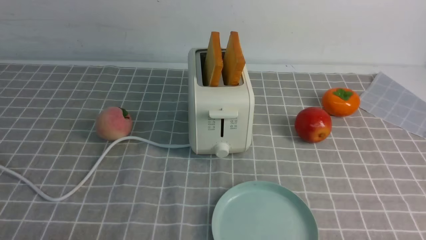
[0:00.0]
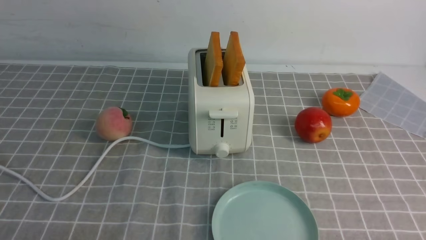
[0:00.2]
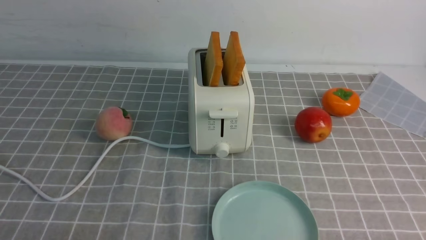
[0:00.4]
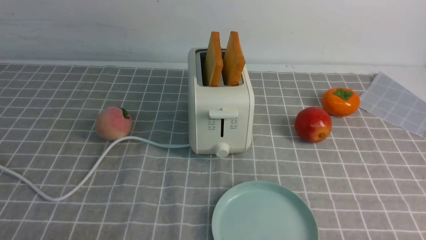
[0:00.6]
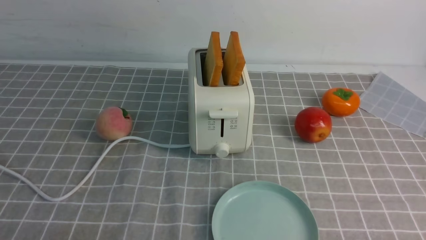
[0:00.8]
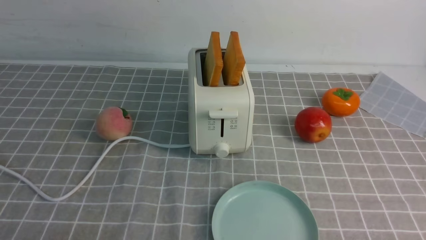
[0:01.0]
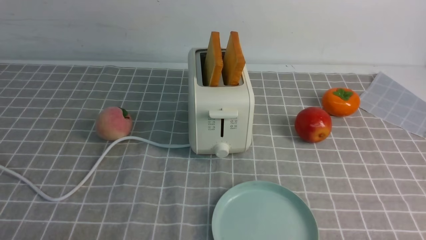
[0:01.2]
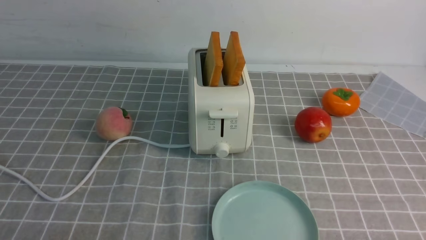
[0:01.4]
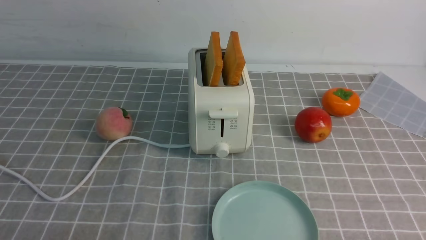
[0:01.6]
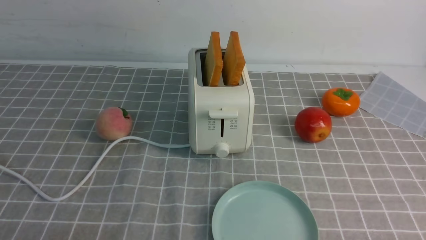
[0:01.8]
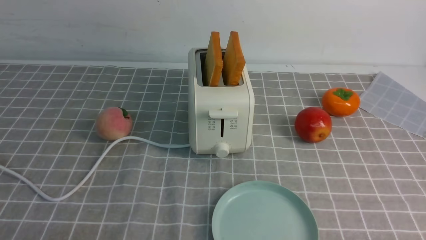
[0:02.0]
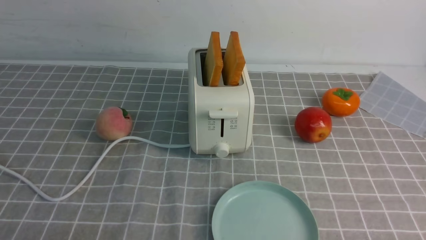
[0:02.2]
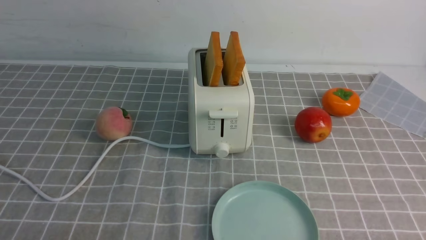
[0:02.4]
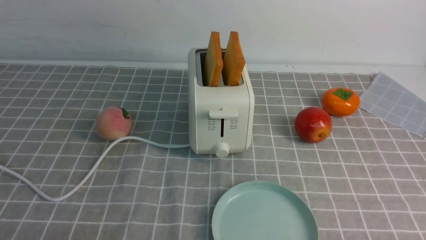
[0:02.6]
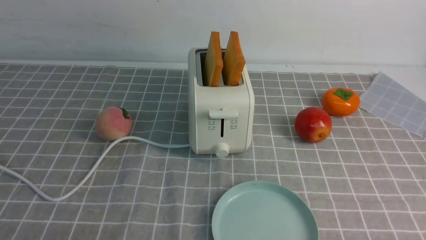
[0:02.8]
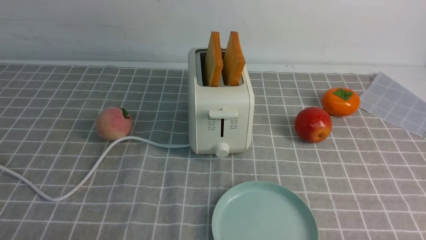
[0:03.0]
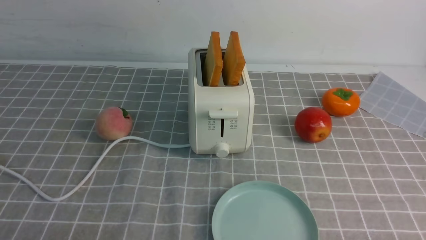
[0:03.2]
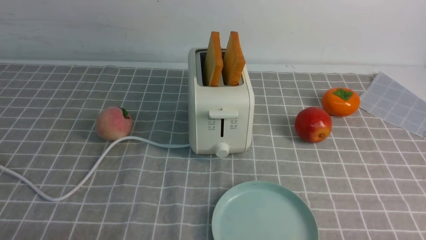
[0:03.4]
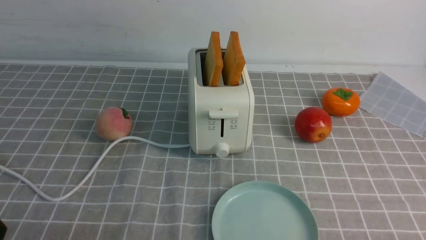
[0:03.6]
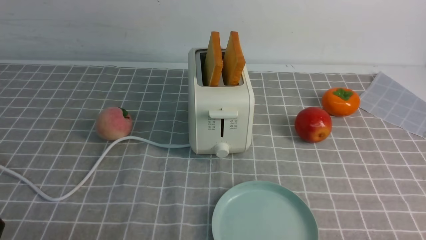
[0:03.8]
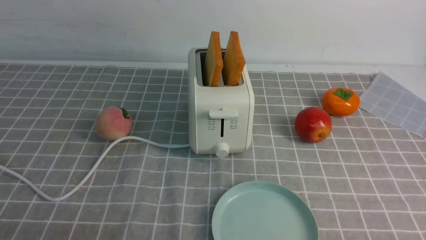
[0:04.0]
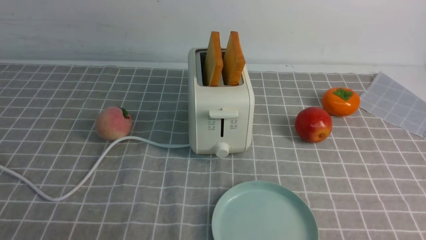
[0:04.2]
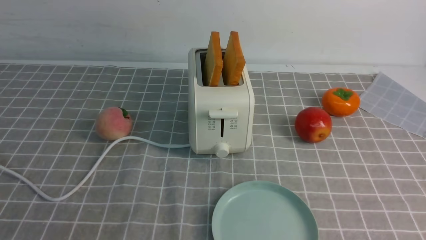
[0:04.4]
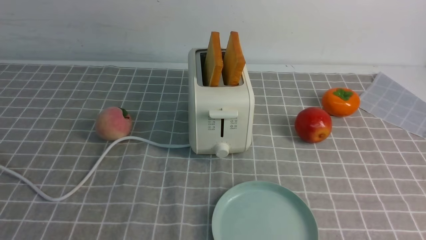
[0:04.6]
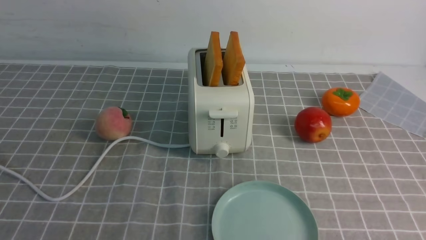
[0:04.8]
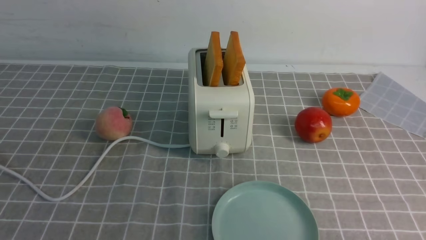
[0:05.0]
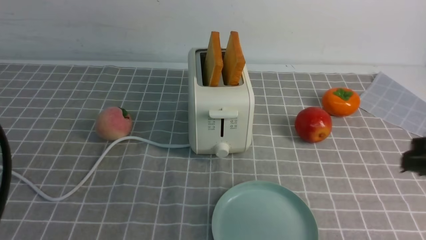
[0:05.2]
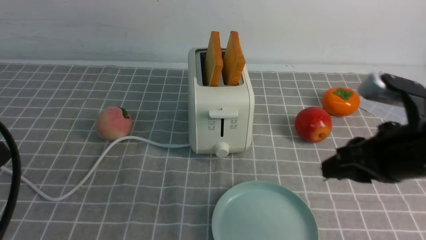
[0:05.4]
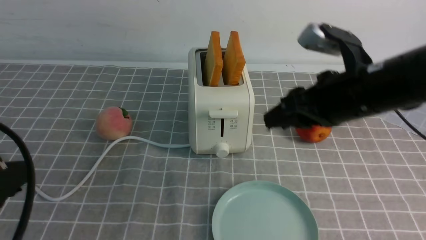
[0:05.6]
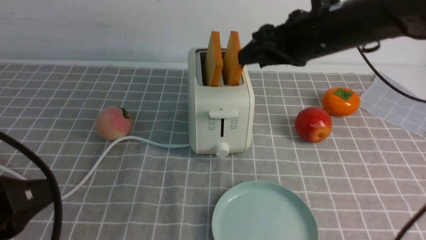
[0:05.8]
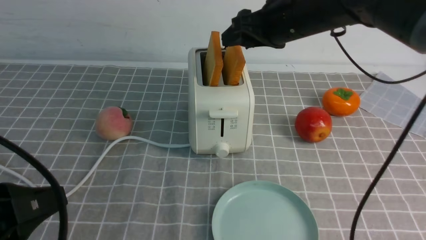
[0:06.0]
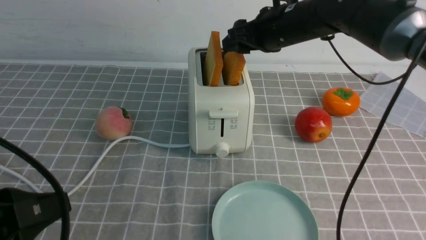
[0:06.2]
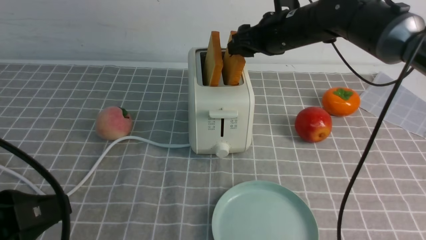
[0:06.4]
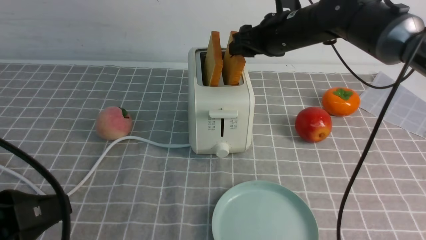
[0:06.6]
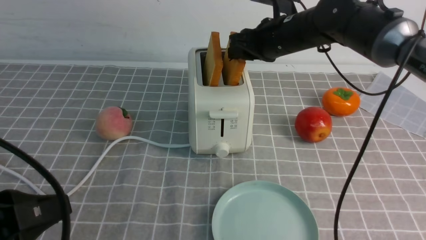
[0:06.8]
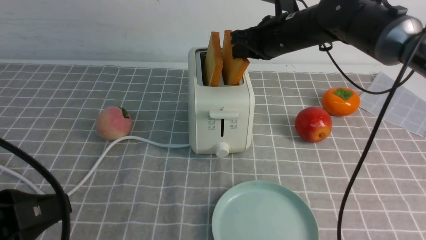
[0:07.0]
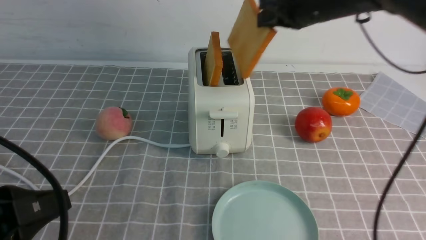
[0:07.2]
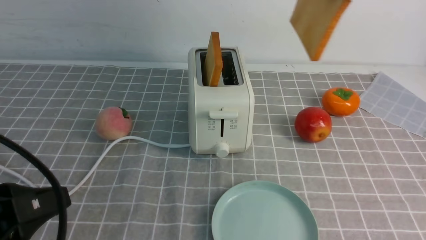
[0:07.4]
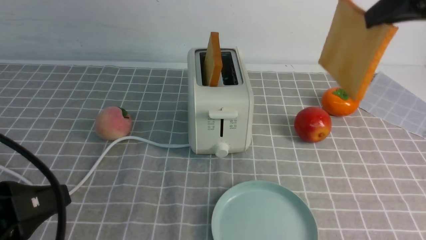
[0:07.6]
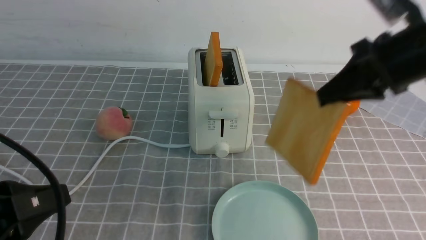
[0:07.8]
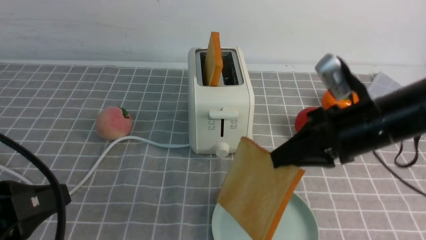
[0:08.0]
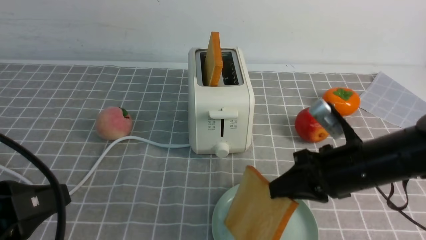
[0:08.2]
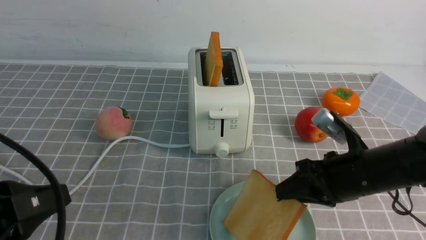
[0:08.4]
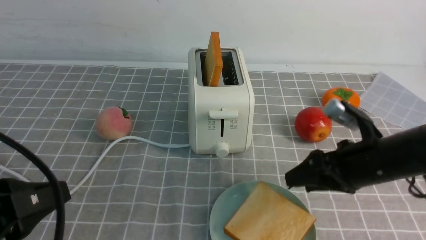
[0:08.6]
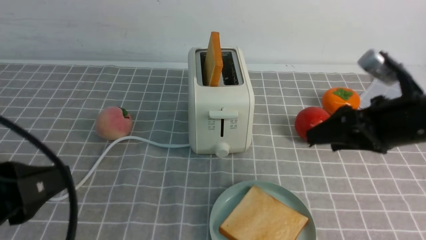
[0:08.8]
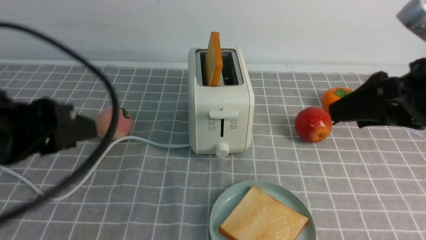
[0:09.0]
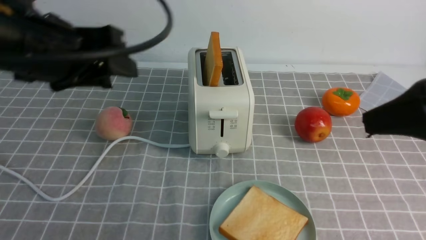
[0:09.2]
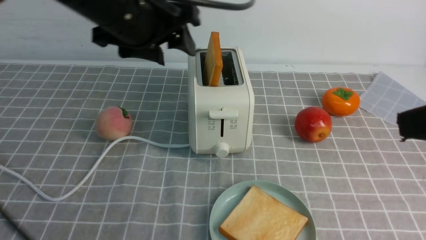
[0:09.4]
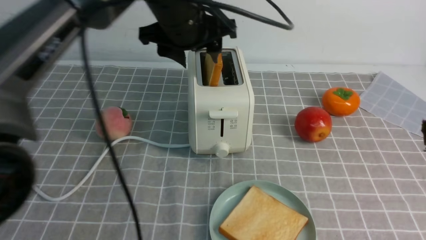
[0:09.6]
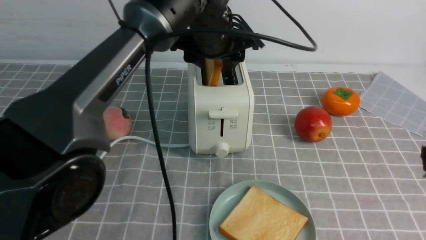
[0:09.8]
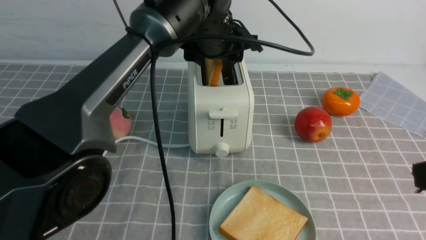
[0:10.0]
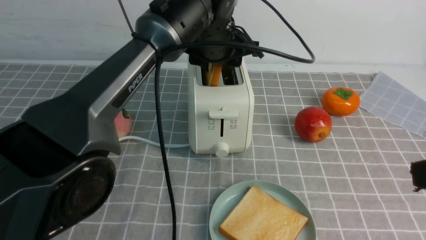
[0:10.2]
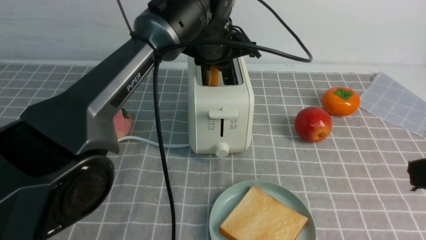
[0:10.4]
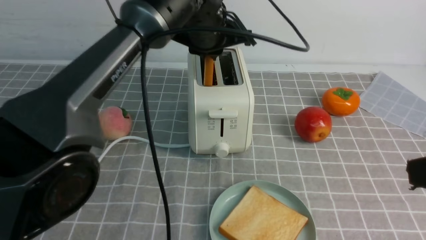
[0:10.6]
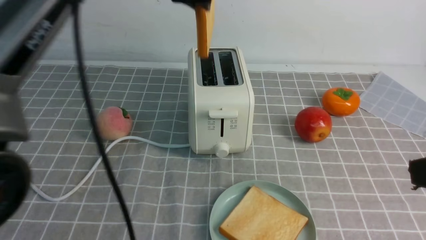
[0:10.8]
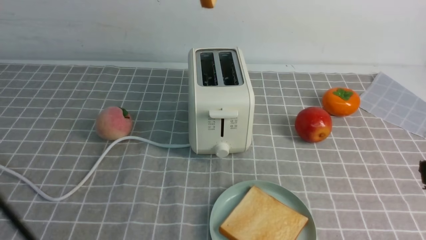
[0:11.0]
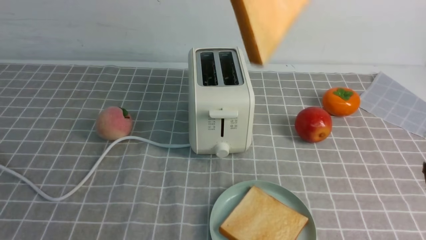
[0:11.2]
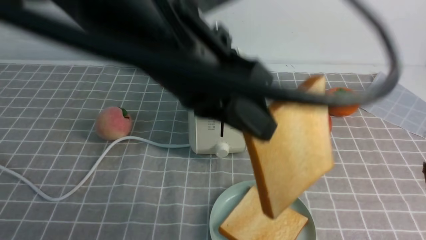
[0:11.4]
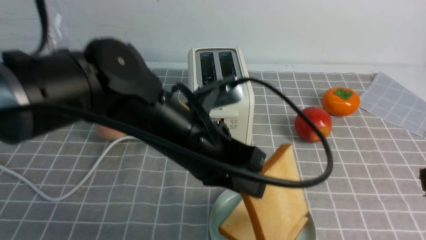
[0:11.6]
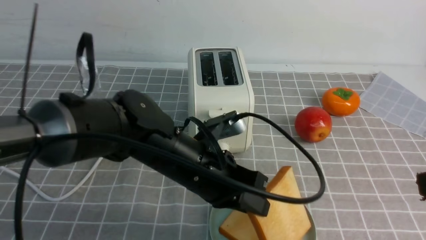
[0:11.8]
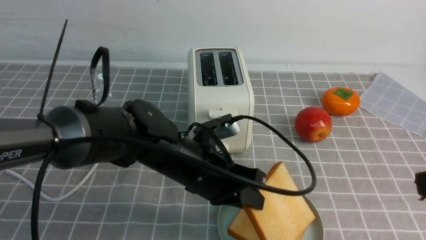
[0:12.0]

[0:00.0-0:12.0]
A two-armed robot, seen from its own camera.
Task of the whole recording: take toasted bread from bread machine on grey coffee table place on plate.
Step, 0:00.0 to 0:07.0: use the right arm to take out a slice of bread.
Step, 0:07.2 to 0:08.8: use the right arm to put a slice of bread into the plate.
Step, 0:09.0 to 0:10.6: use the left arm to take out a slice of bread.
0:00.0 to 0:03.0: Neither gripper changes place.
0:04.4 to 0:06.0: The left gripper shifts about 5 cm forward, and reaches roughly 5 cm upward, then returns; the right gripper is displaced forward and to the left by roughly 40 cm, and opens up.
0:06.0 to 0:07.6: The right gripper moves to the right, backward and upward, approximately 15 cm, and closes up.
0:07.6 to 0:09.0: The right gripper is displaced backward by about 10 cm, goes downward and returns, about 20 cm each way, and opens up, while the left gripper goes some 10 cm forward and upward.
0:09.0 to 0:10.4: The right gripper is displaced backward by about 10 cm. Meanwhile the left gripper shifts roughly 30 cm forward and to the right.
0:10.4 to 0:12.0: The left gripper heads backward and downward, covering about 20 cm.

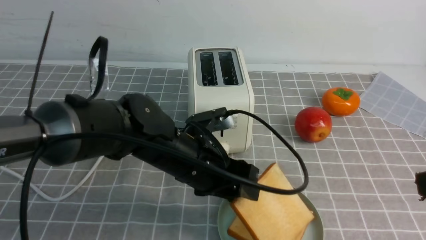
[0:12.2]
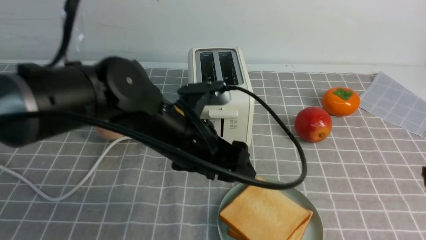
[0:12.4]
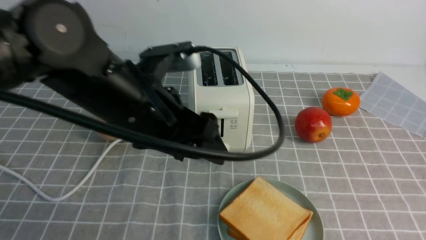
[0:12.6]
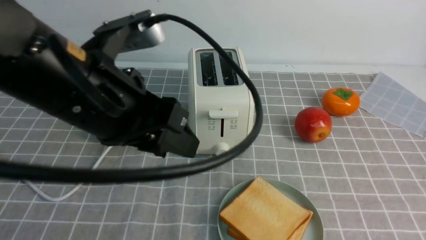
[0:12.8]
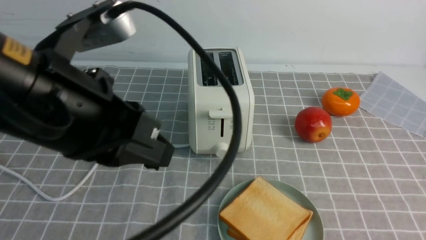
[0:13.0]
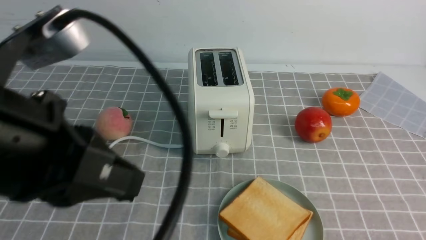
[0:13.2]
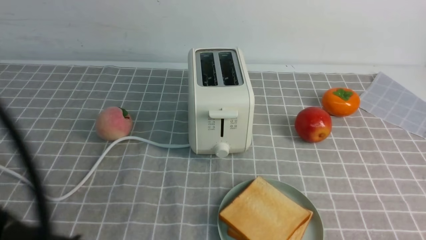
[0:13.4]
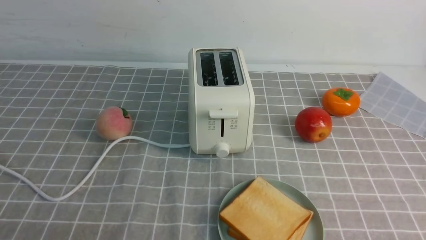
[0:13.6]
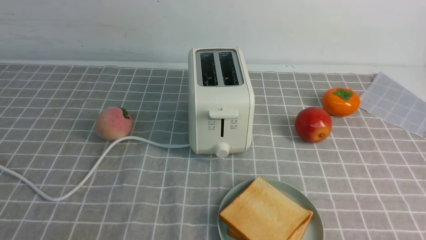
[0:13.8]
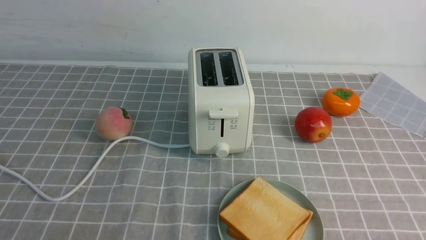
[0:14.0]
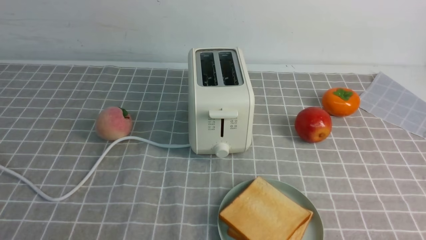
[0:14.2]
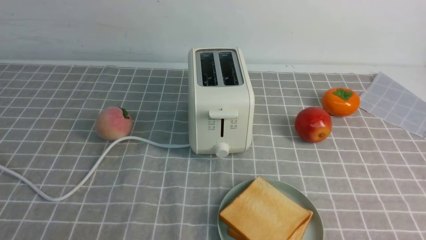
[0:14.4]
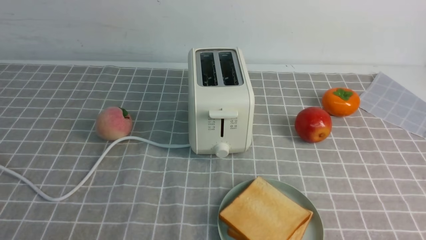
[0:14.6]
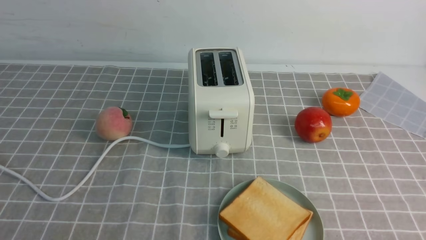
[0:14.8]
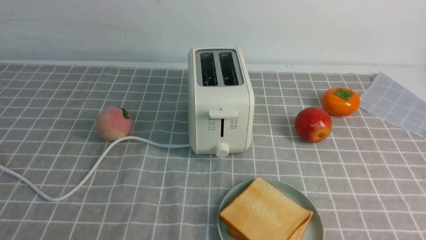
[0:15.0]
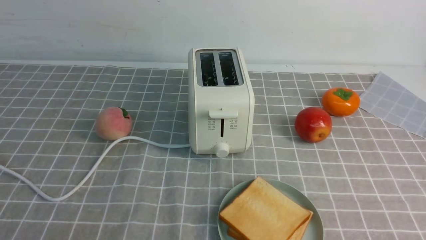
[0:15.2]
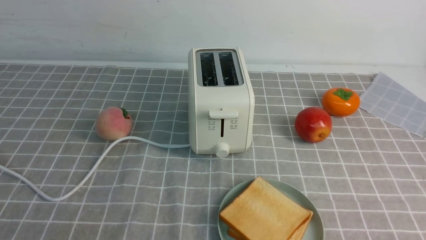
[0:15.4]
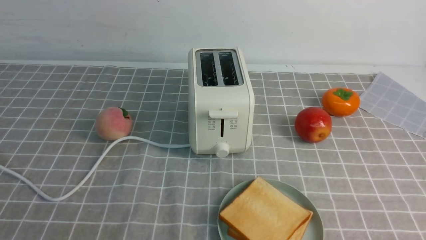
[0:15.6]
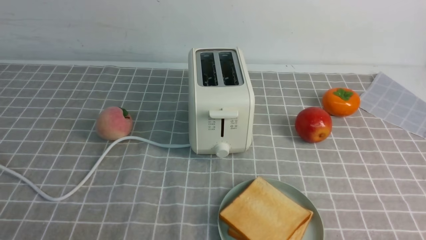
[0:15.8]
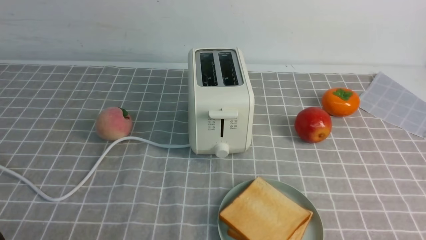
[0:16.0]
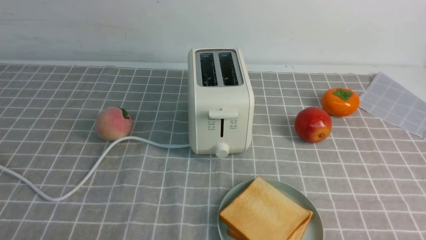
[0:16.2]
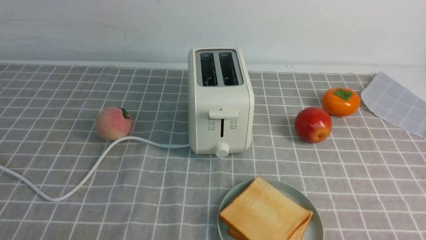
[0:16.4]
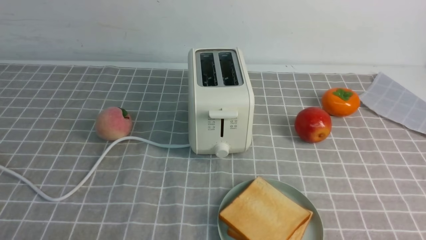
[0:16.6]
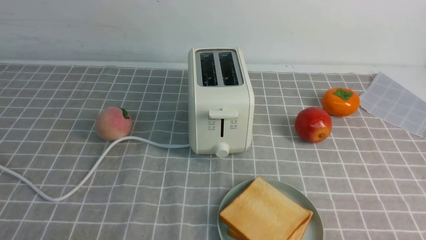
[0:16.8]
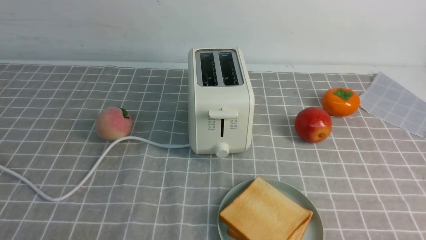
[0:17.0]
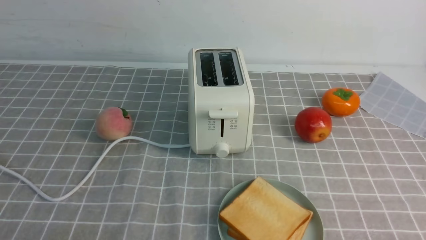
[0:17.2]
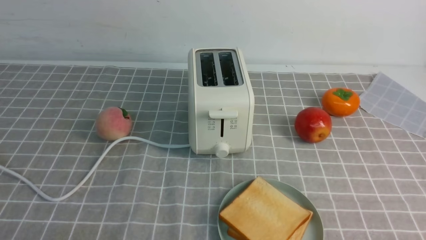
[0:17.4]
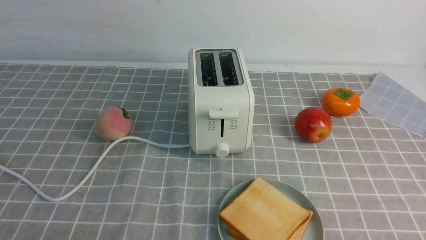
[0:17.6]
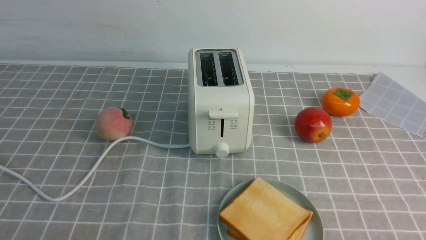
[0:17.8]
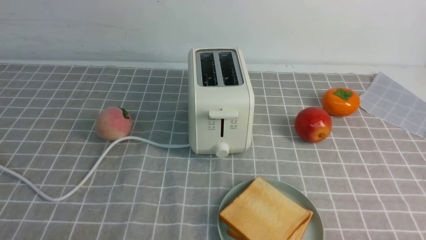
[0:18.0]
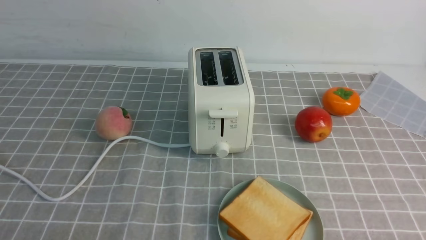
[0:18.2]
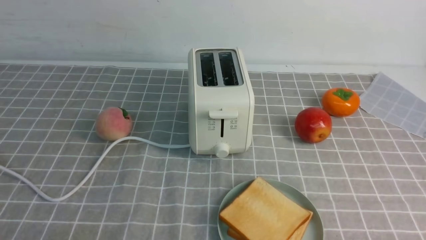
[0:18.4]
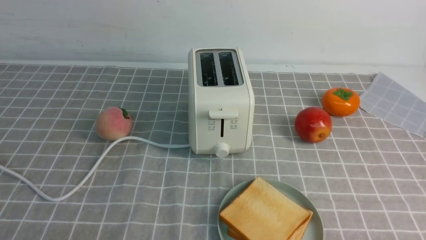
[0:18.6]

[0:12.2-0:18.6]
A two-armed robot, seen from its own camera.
Task of the whole recording: take toasted bread from bread machine on grey coffee table place on plate.
0:12.2 to 0:13.8: The left gripper travels backward and to the left by approximately 35 cm, and closes up. The right gripper moves downward, approximately 15 cm, and closes up.
